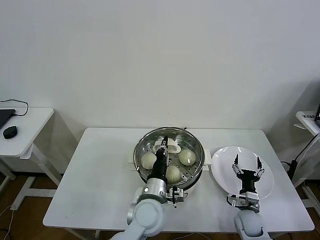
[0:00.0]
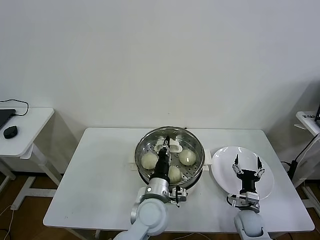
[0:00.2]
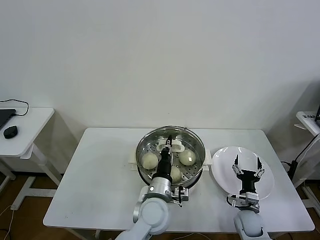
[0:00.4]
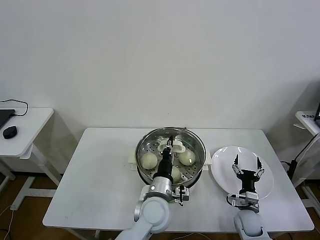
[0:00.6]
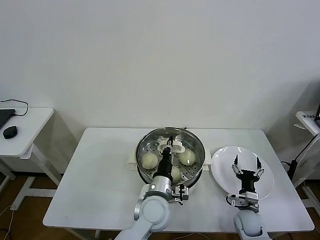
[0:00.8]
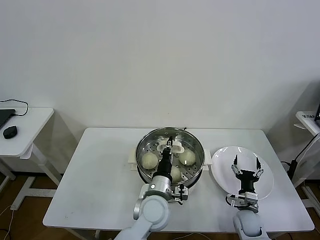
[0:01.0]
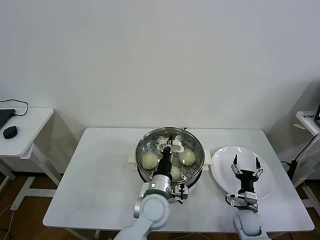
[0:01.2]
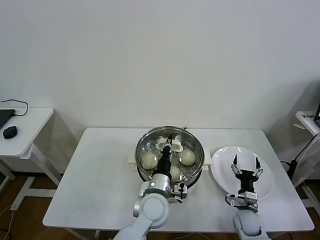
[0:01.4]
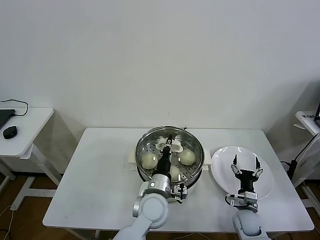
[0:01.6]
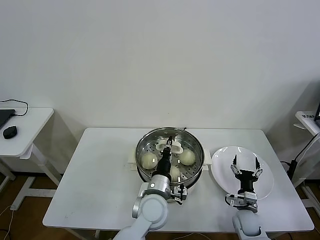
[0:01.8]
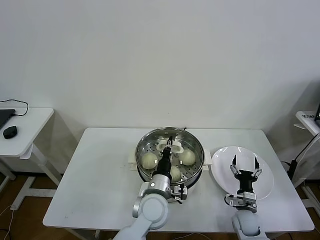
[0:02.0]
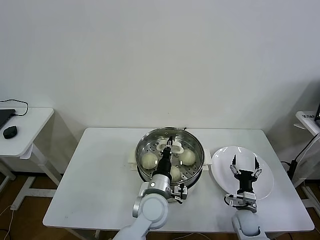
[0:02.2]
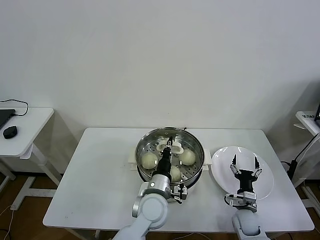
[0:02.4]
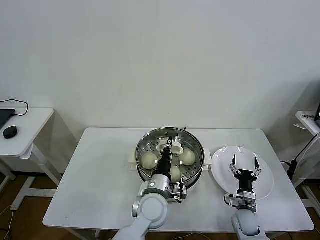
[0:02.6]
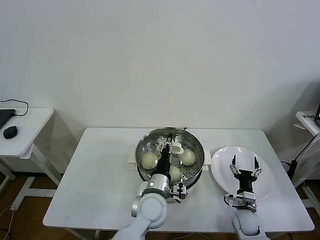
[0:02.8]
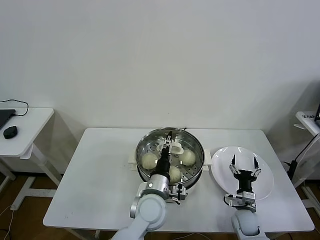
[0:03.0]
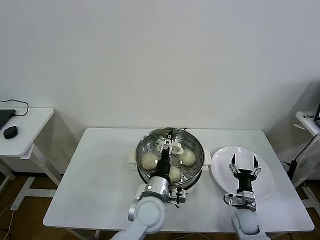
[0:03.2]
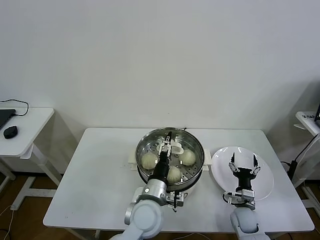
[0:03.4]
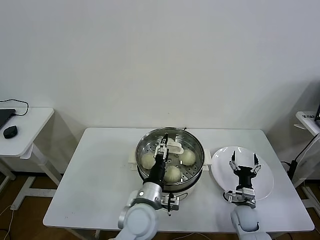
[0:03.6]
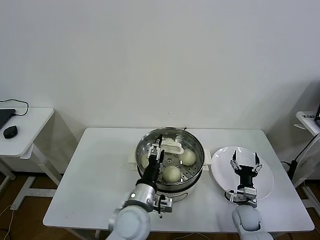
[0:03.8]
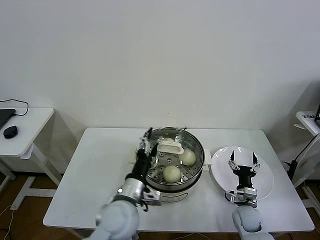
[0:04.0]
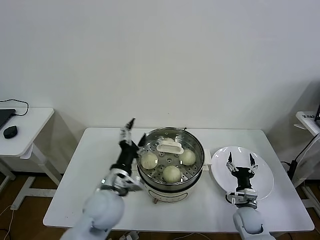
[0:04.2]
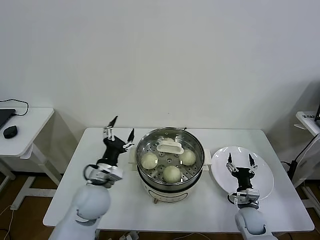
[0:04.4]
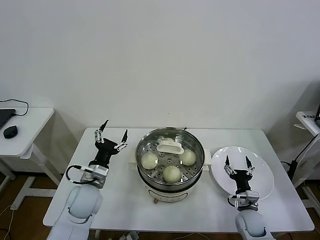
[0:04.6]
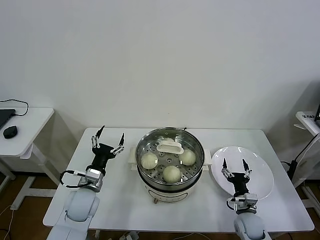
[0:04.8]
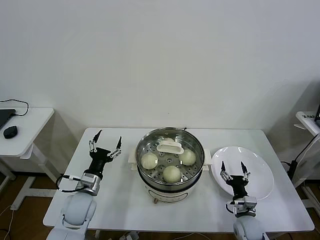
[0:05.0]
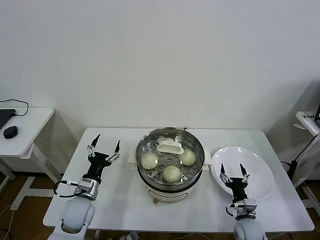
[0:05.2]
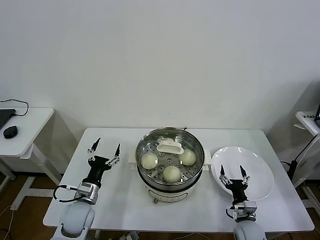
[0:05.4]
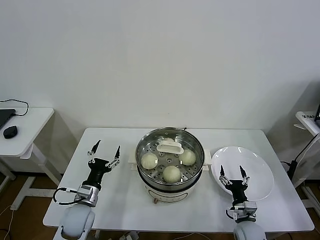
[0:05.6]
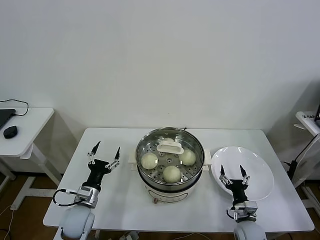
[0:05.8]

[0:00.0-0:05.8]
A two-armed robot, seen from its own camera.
Task of the whole recording: take steamed baozi put them in steamer then cover it.
Step, 0:00.0 to 0:03.0: Place the pot lid on the steamer with left gripper.
0:00.0 to 0:01.4: The grippers stay close to where they were, moving slightly.
0:01.4 to 0:02.8: Both grippers stay put.
0:02.8 to 0:04.4: The left gripper moves to the left, approximately 15 cm, and opens up.
0:04.4 to 0:05.8: The left gripper moves downward and to the left, about 15 cm.
